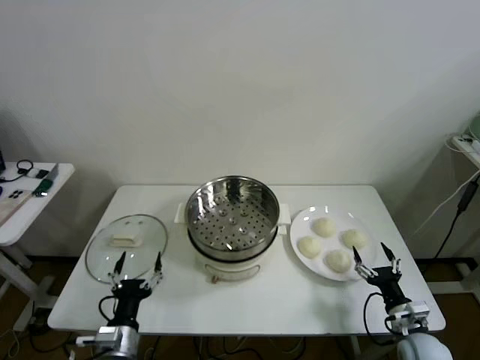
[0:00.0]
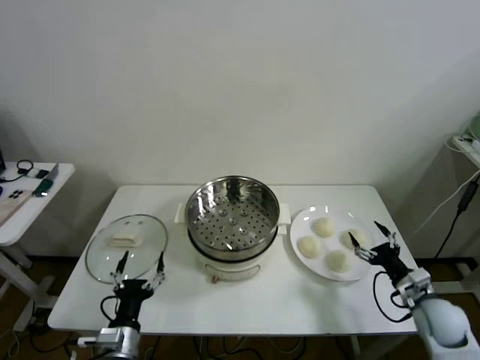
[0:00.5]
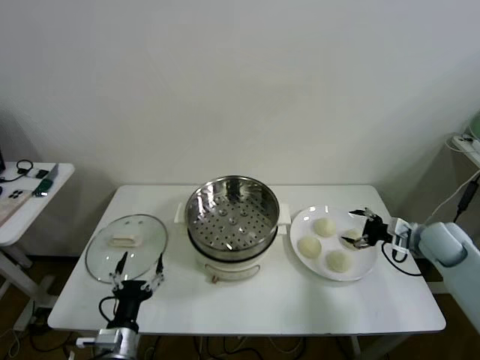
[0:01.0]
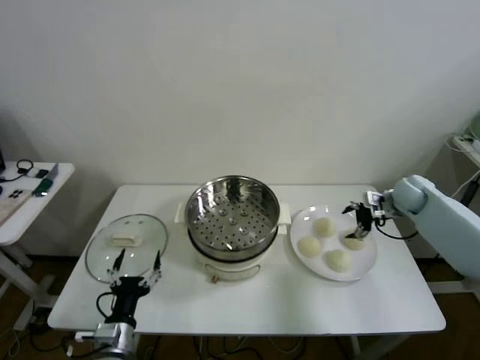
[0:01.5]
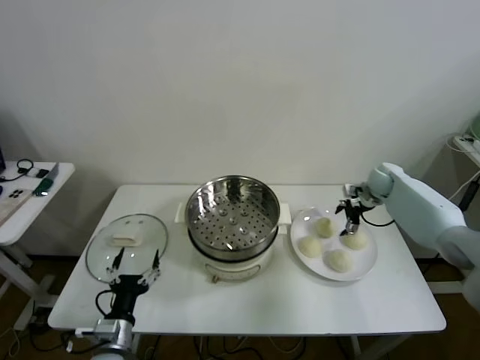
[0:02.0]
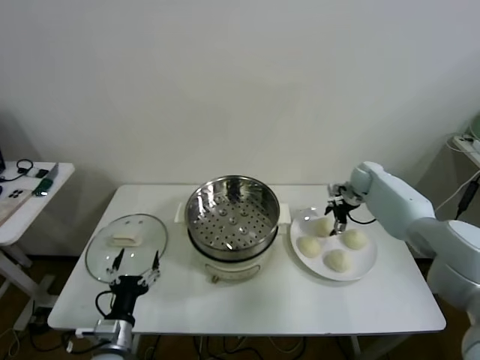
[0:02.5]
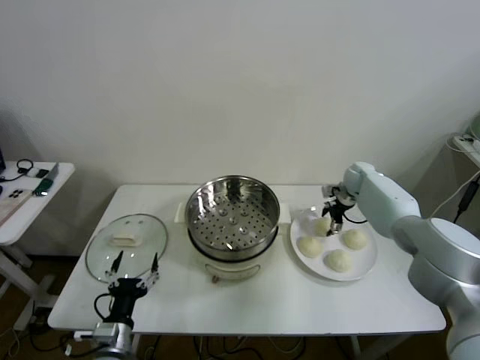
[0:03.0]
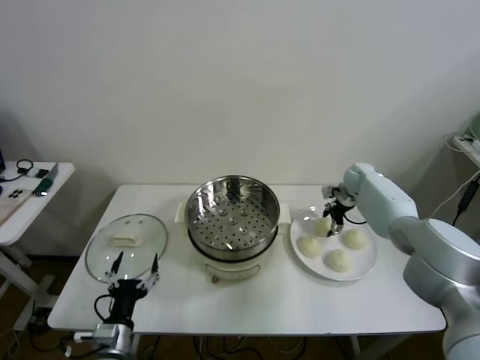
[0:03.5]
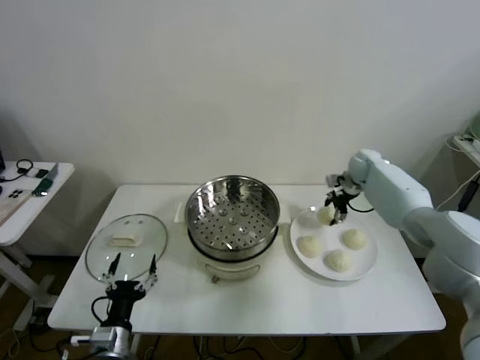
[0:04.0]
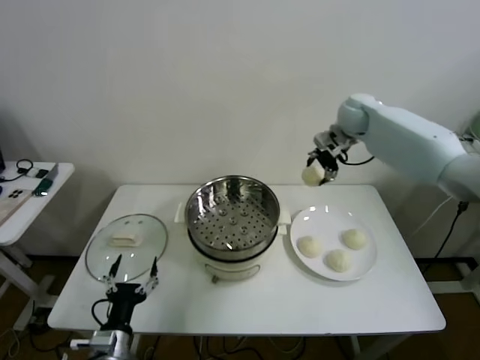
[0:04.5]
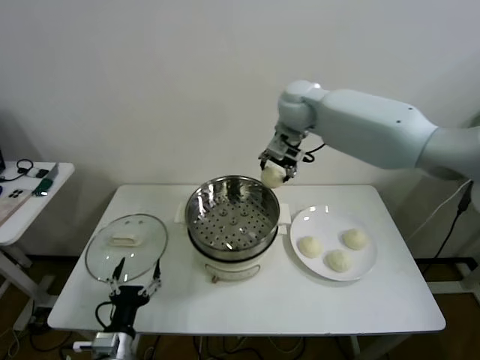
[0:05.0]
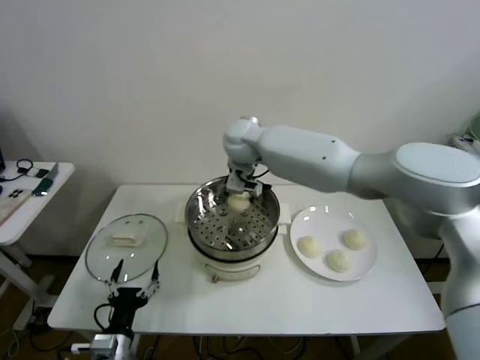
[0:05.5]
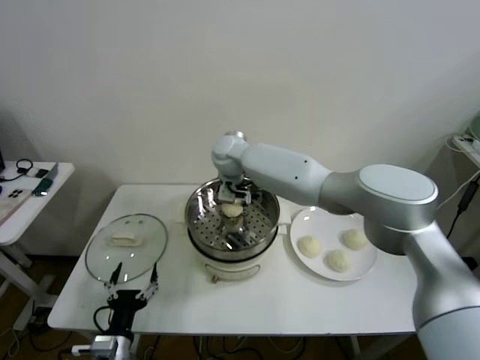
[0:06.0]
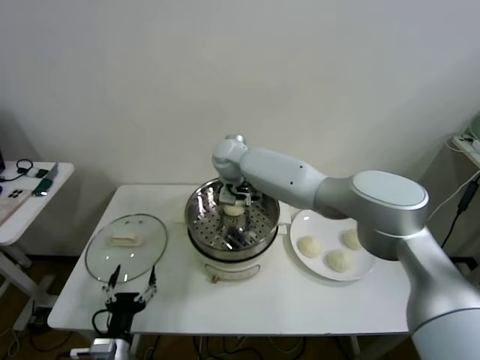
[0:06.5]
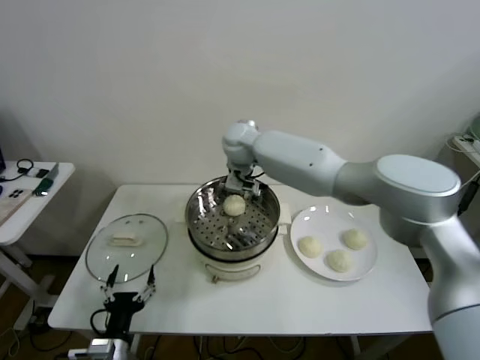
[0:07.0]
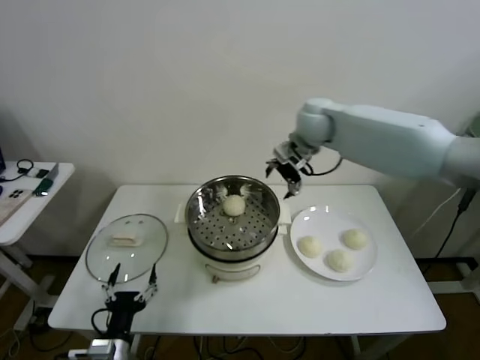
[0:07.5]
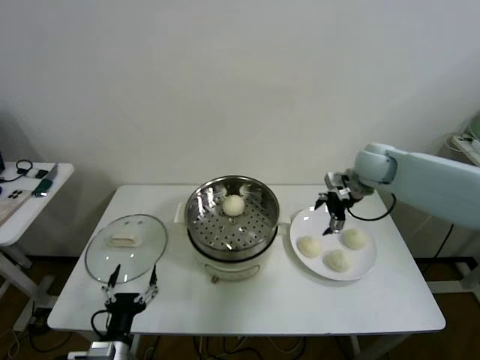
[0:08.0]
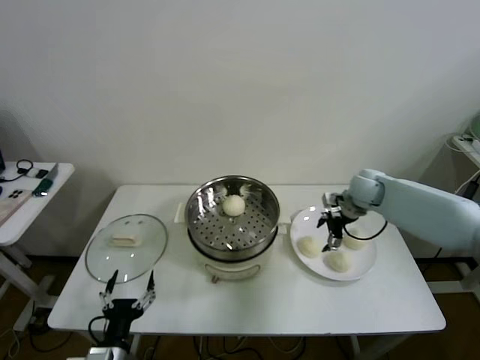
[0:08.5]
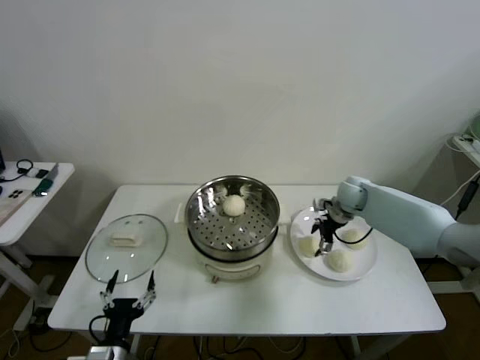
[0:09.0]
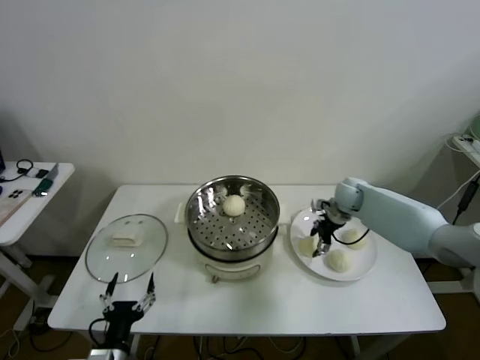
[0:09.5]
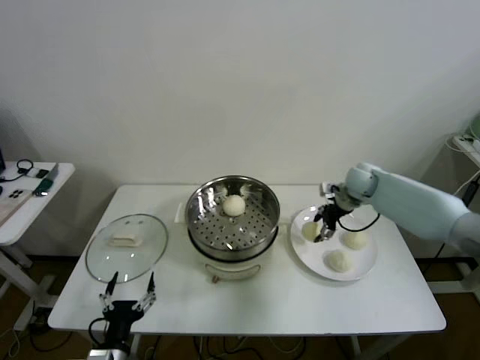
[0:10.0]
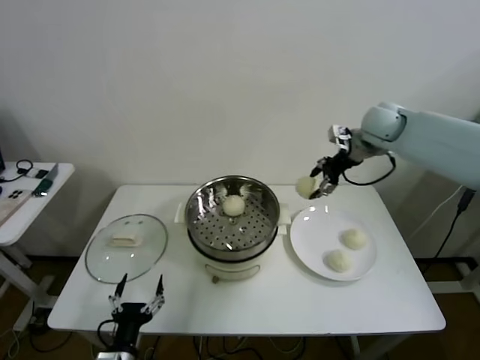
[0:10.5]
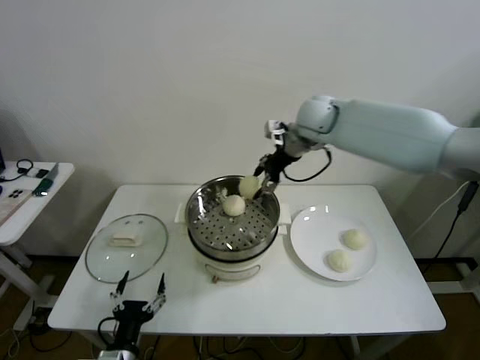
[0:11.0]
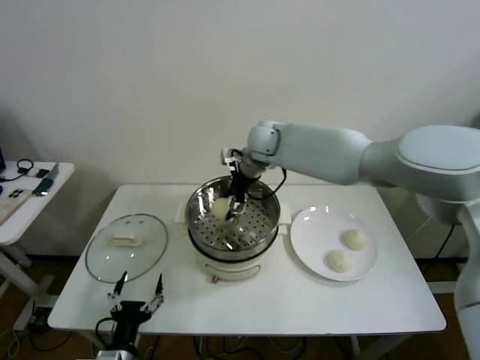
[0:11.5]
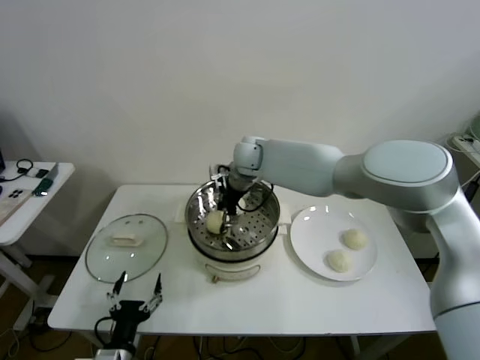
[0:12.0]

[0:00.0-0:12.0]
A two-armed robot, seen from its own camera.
Task of the whole recording: take steamed baozi put them in steamer then cover it.
Step, 0.0 to 3.5 s: Grasp the baozi in the plate with right gripper.
Step, 4.0 to 6.5 s: Place the baozi on the steamer with right gripper.
Step, 7.0 to 9.5 s: Grasp the baozi in the plate with right gripper.
2.0 to 4.0 s: The right gripper travels upward by roughly 5 cm.
4.0 to 6.0 s: The right gripper moves to the left, roughly 40 cm.
6.0 to 8.0 s: The right gripper goes some 35 cm to the right.
8.0 to 10.0 s: The right gripper travels downward by about 5 cm.
10.0 to 12.0 s: The right gripper is displaced to the left by roughly 30 cm.

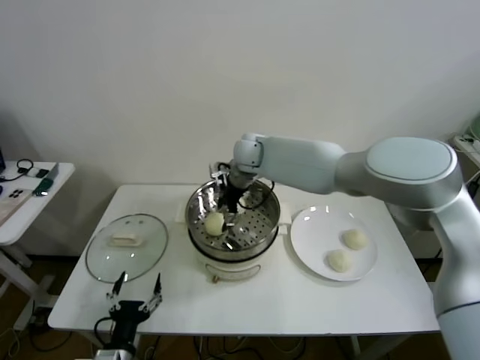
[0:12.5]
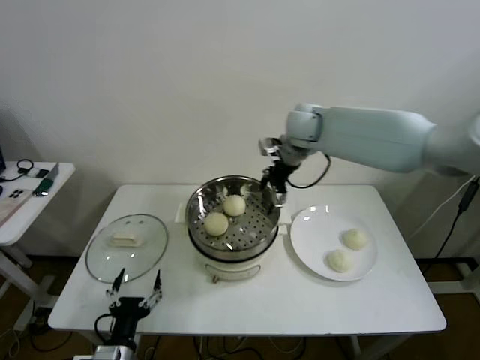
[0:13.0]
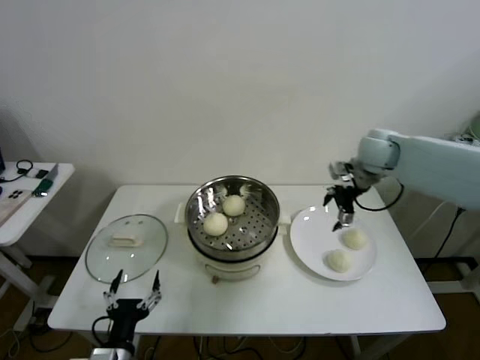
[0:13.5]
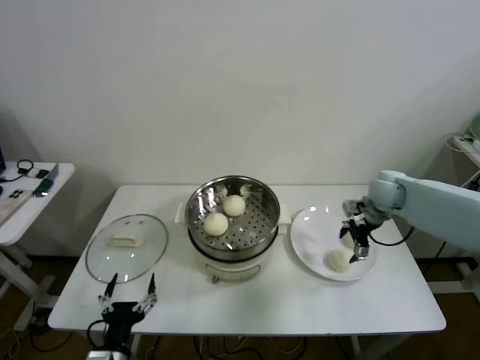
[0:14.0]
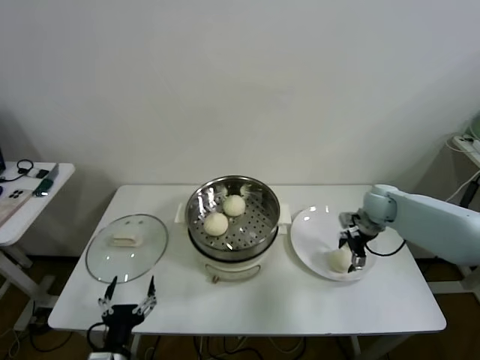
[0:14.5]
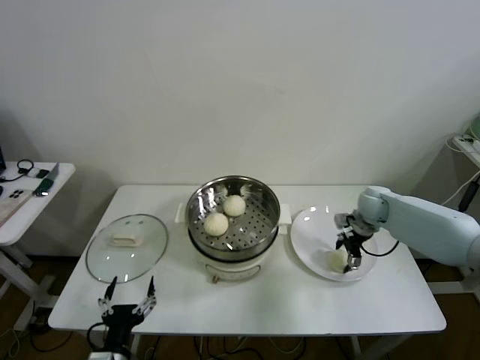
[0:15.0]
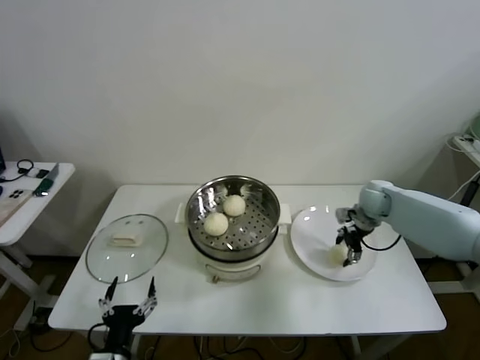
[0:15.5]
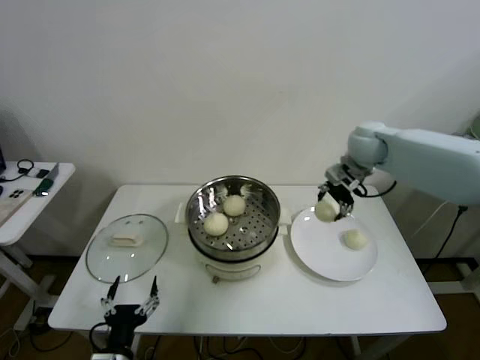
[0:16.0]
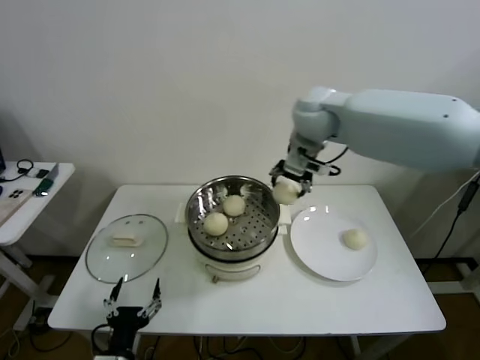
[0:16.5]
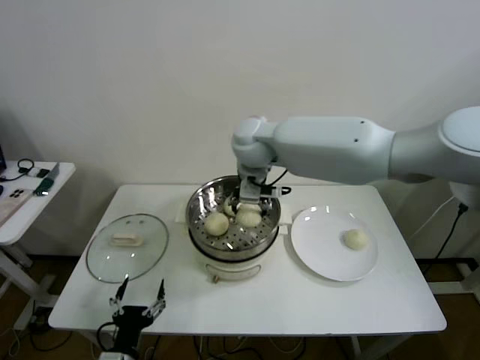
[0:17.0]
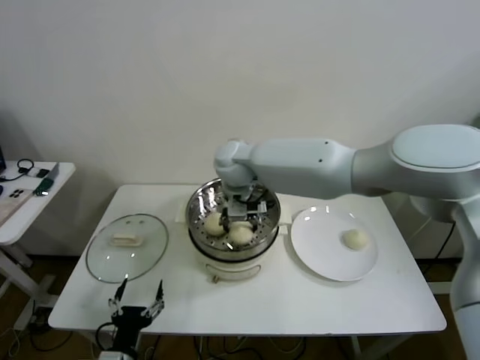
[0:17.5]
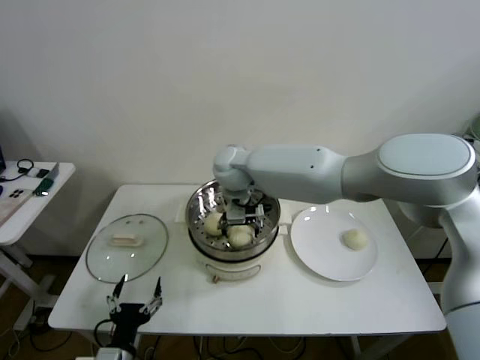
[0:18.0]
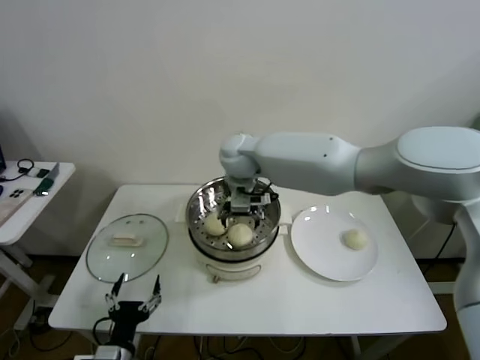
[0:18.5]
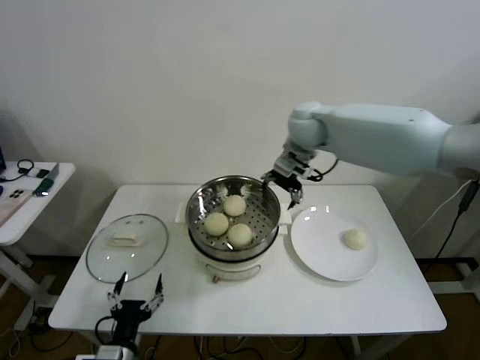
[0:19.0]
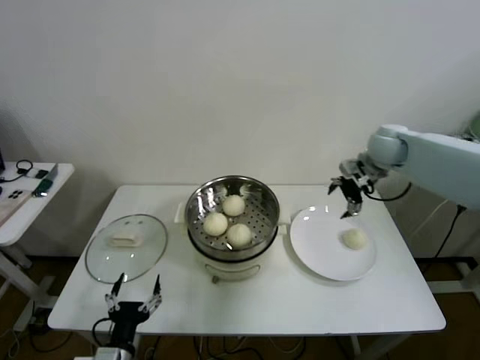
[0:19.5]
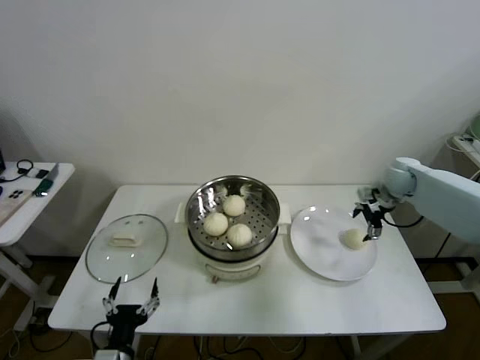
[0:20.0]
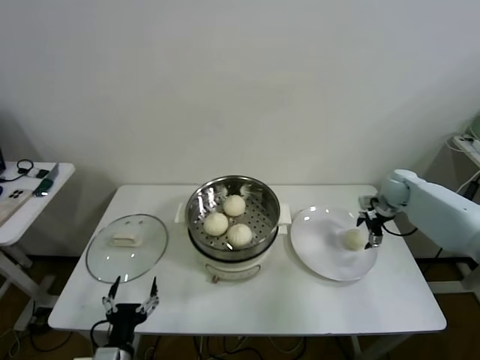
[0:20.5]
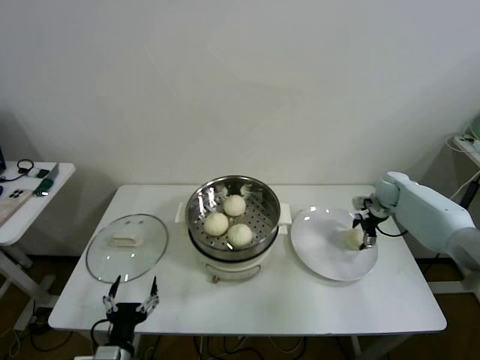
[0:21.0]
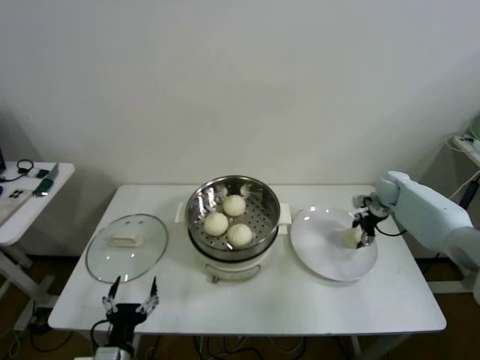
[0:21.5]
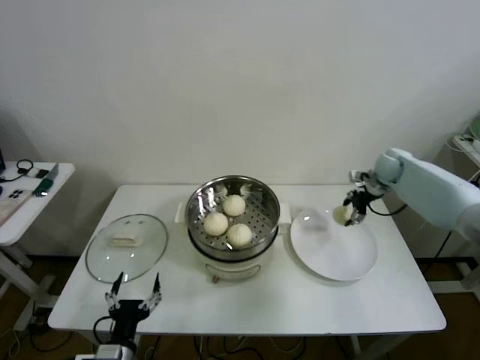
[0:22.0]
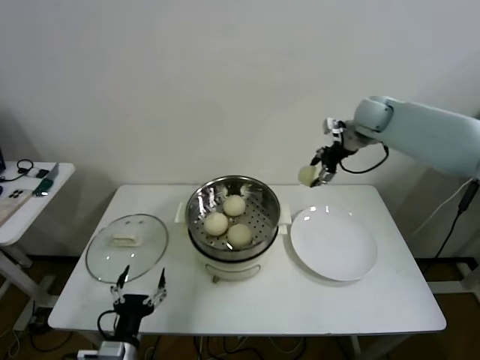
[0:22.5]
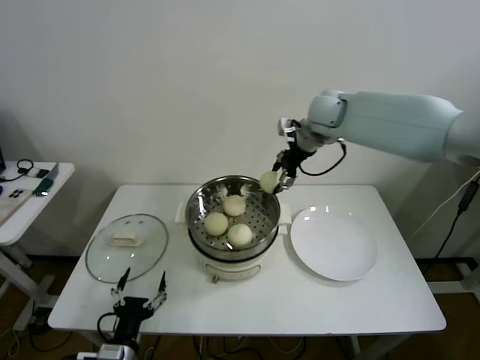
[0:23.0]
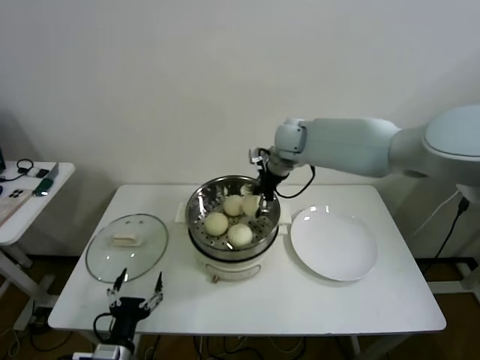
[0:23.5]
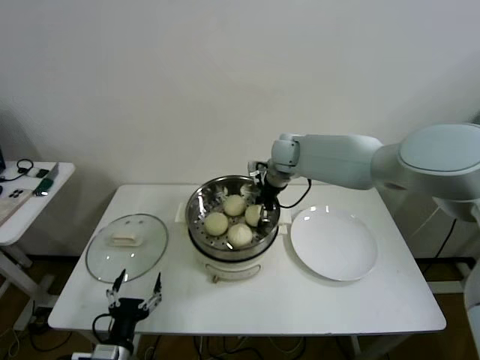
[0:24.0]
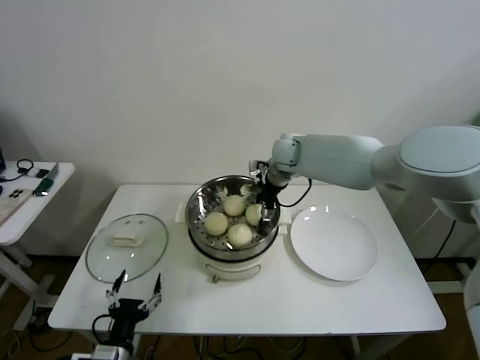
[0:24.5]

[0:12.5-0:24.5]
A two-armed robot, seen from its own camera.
Task of the whole recording: take steamed baozi put them in steamer then cover it.
Step, 13.0 to 15.0 s: Grasp the baozi in the plate with right gripper.
Step, 15.5 to 18.0 s: Place the baozi on the steamer with right gripper.
Step, 18.5 to 21.0 s: Grasp the baozi in the plate with right gripper.
12.5 to 14.5 s: The right gripper is displaced to the right by approximately 35 cm.
14.5 to 16.5 s: The right gripper heads upward and to the left, covering roughly 35 cm.
16.5 to 18.5 s: The right gripper travels to the left and downward by approximately 15 cm.
18.5 to 20.5 s: The right gripper goes approximately 40 cm to the right.
20.5 to 22.5 s: The right gripper is displaced upward and to the left by approximately 25 cm.
22.5 to 24.5 s: The right gripper moves to the left and downward, about 20 cm.

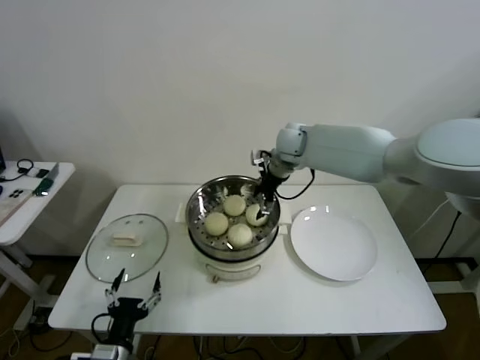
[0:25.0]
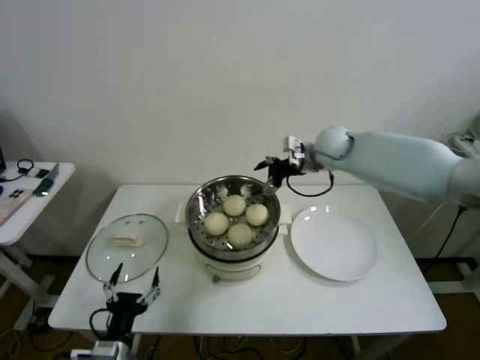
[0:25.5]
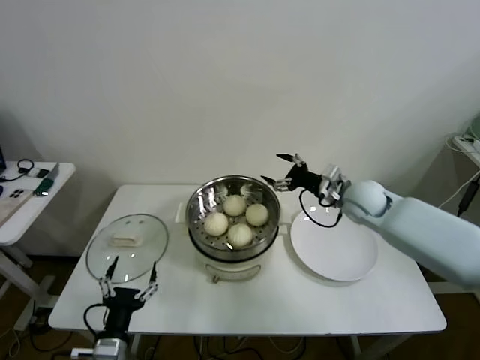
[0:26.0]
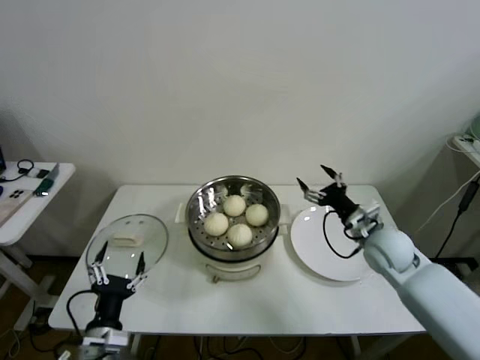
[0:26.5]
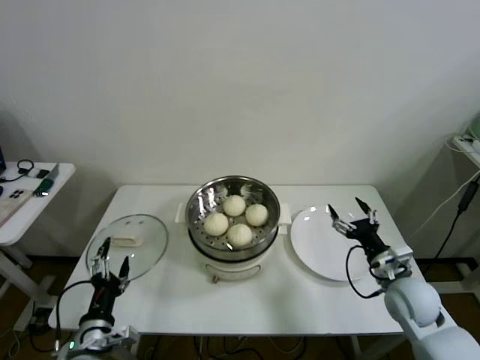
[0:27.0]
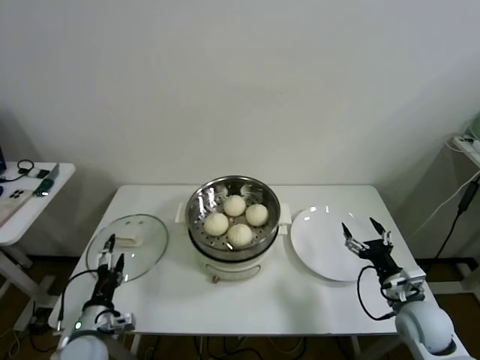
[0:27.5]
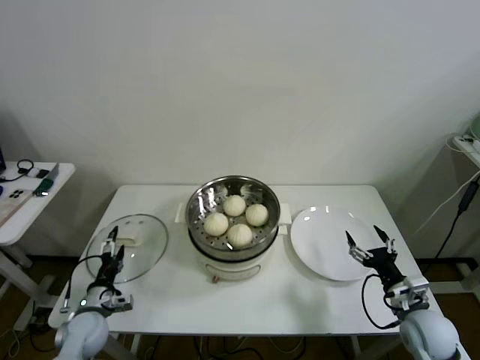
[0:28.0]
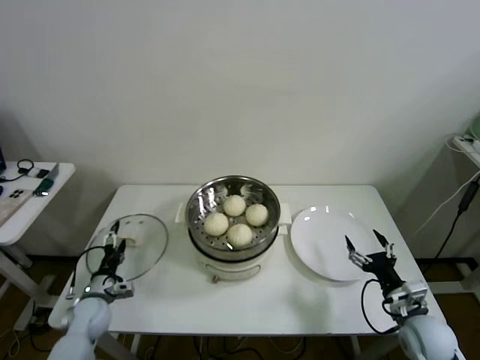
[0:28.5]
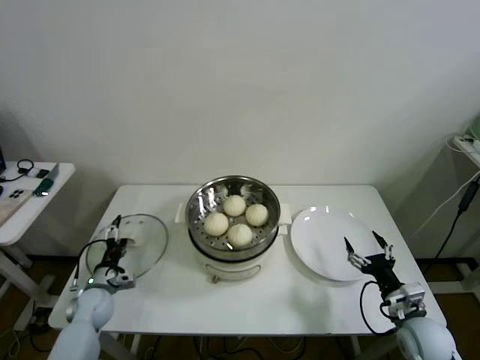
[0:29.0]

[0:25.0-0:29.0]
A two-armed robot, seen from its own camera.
Task of the whole recording: take steamed baozi put them in steamer then cover it.
25.0 to 27.0 s: The right gripper is displaced backward, to the right and downward by approximately 40 cm. Meanwhile the left gripper moves approximately 5 cm.
27.0 to 29.0 s: The left gripper moves forward, downward and to the left, roughly 25 cm; the right gripper heads backward and downward, covering roughly 10 cm.
